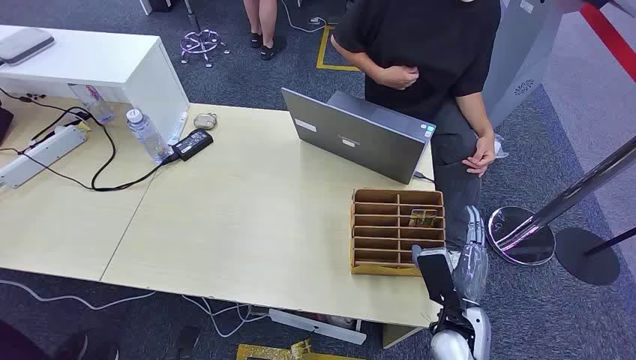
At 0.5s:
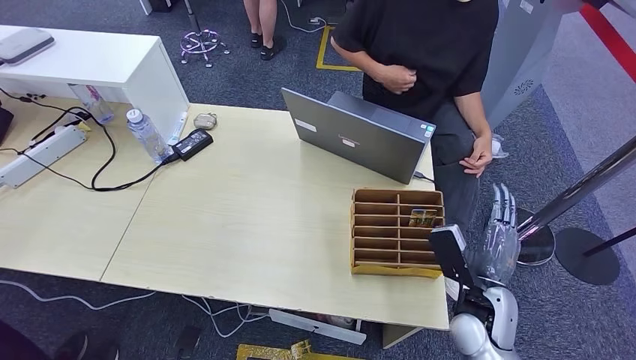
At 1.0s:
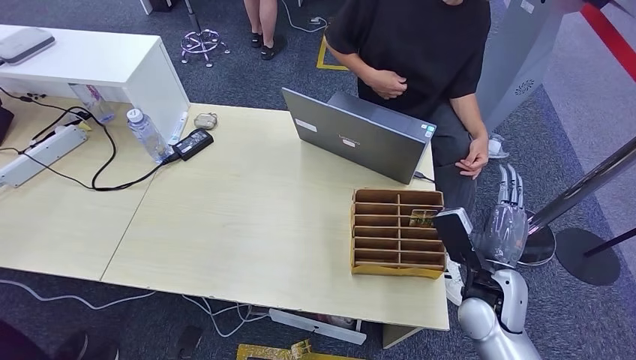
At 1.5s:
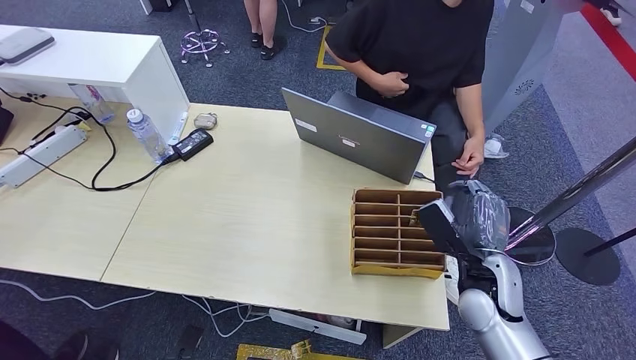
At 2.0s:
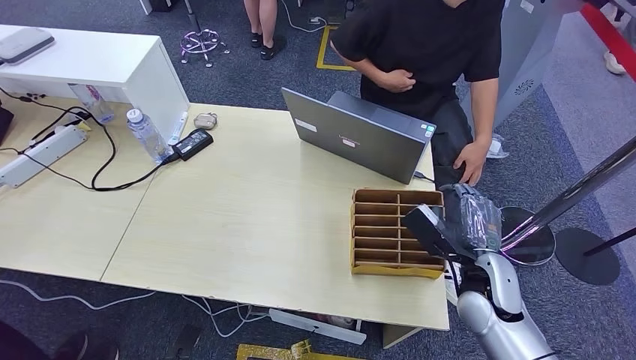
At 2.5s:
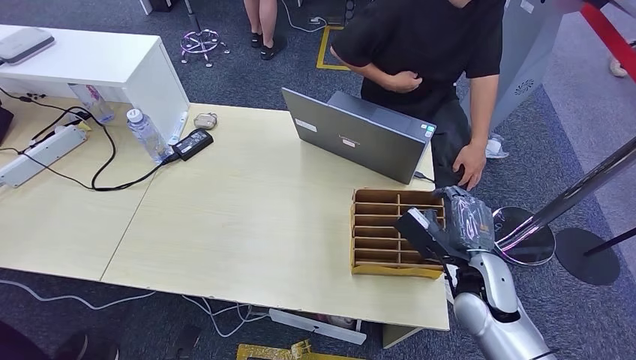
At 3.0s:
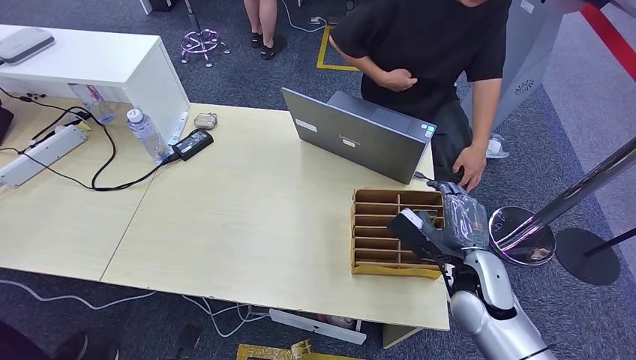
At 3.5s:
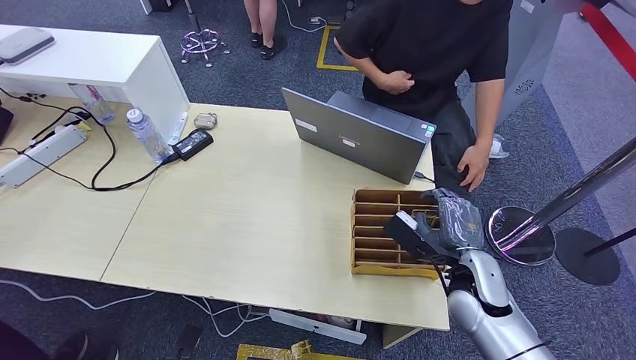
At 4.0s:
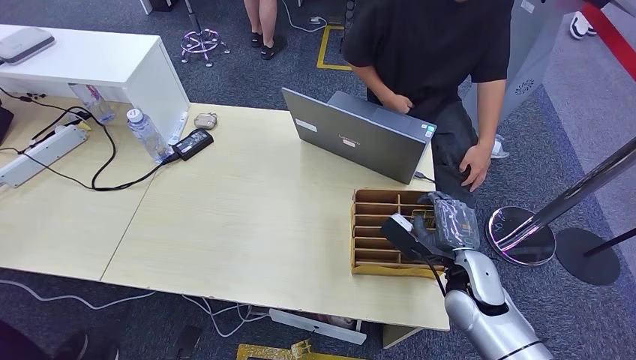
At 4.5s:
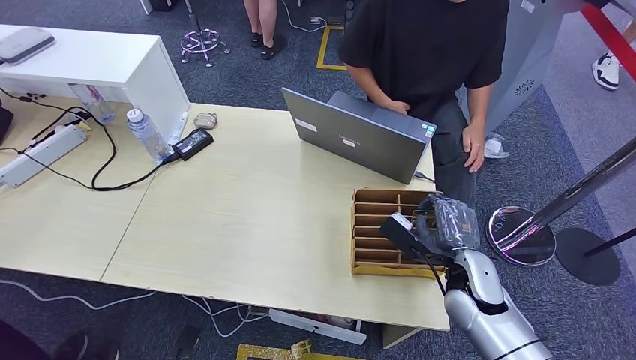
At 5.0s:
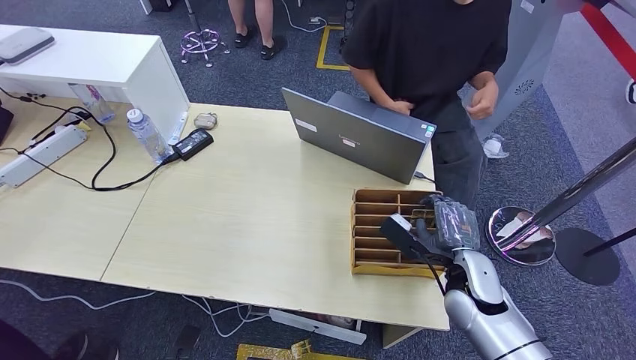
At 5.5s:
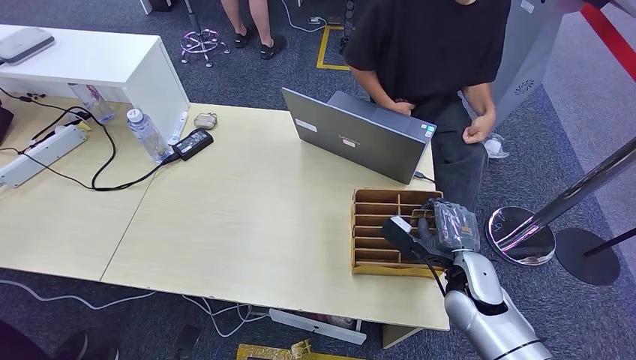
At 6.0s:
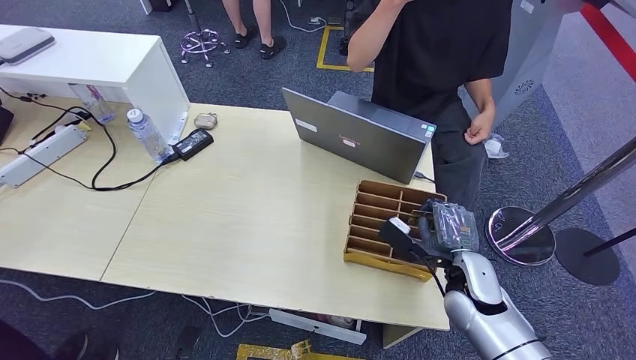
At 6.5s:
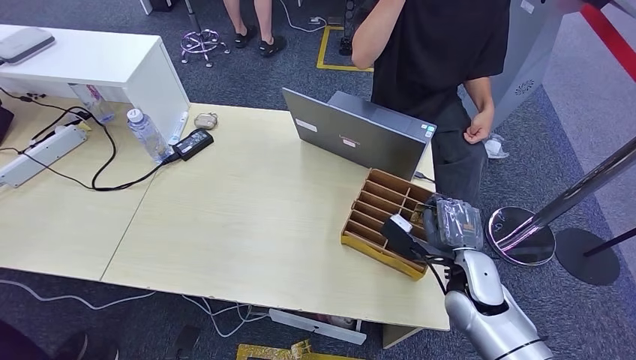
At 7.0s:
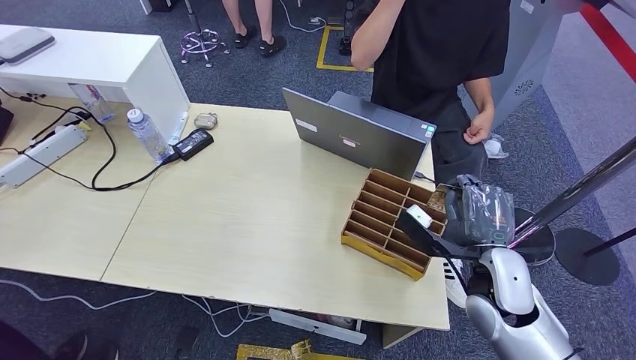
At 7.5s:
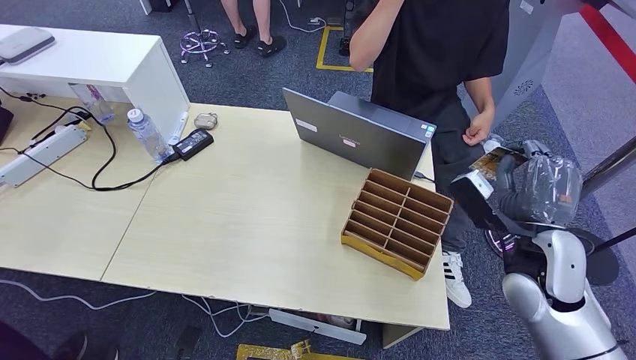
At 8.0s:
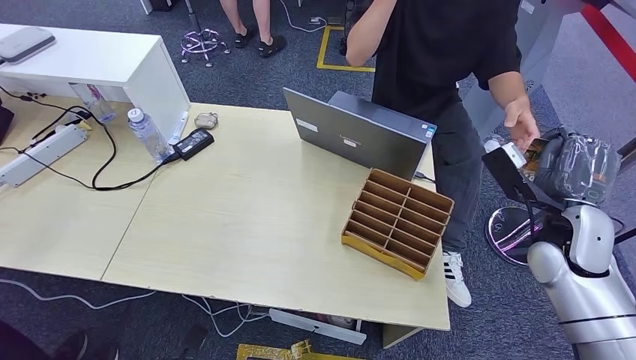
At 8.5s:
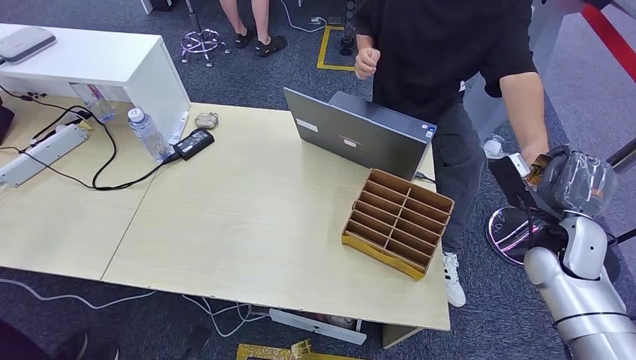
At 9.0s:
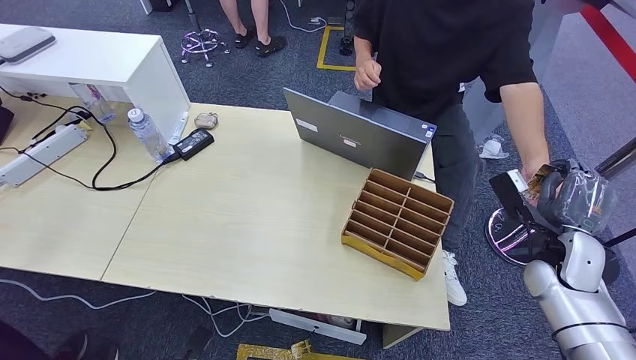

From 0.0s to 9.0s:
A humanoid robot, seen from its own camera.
Task of the whole recording: Pick up the card and hand it over to the target person.
Step, from 0.0s to 7.5s: Pick up the key card from the card box.
Step, from 8.0s to 9.0s: Hand the key card to the target.
From 2.0s to 4.5s: The hands make only small movements.
From 4.5s to 7.0s: The right hand is displaced upward by some 10 cm.
From 7.0s to 9.0s: The right hand is displaced to the right, forward and downward by about 15 cm.

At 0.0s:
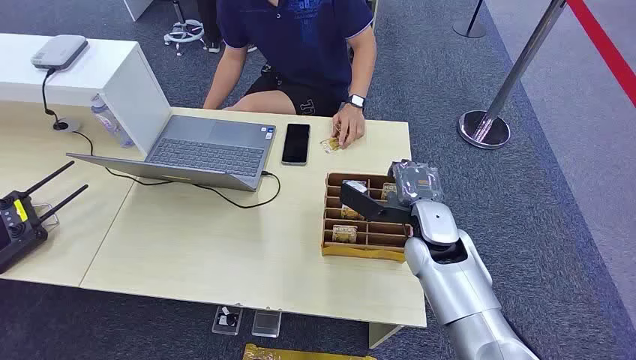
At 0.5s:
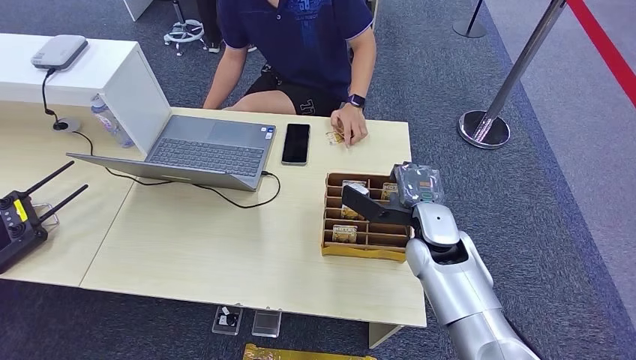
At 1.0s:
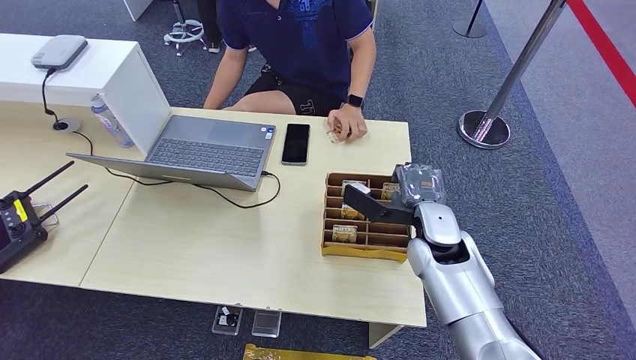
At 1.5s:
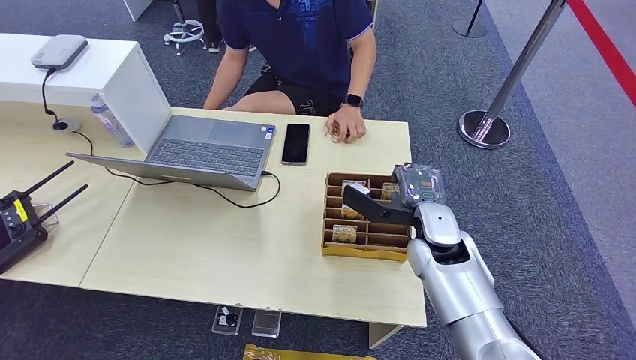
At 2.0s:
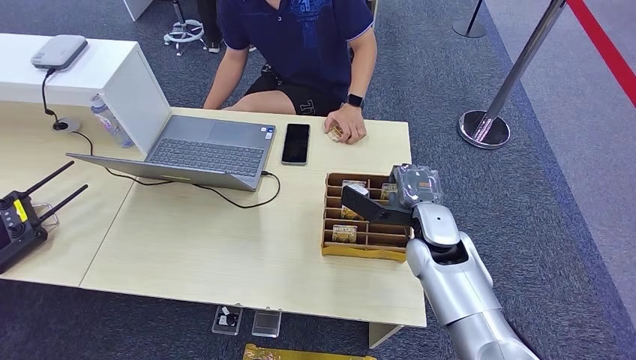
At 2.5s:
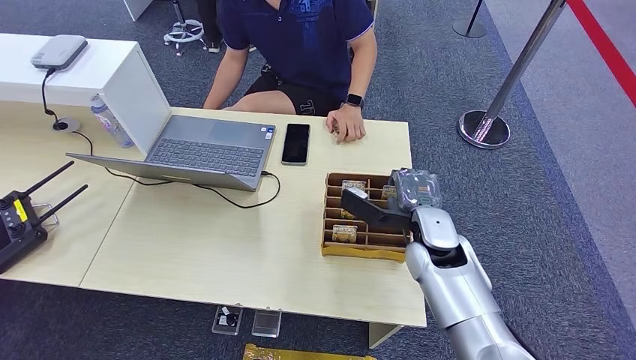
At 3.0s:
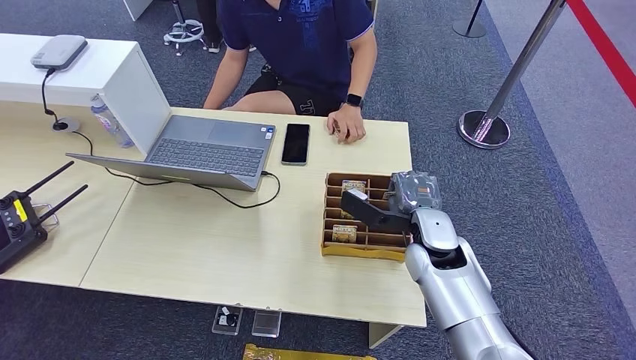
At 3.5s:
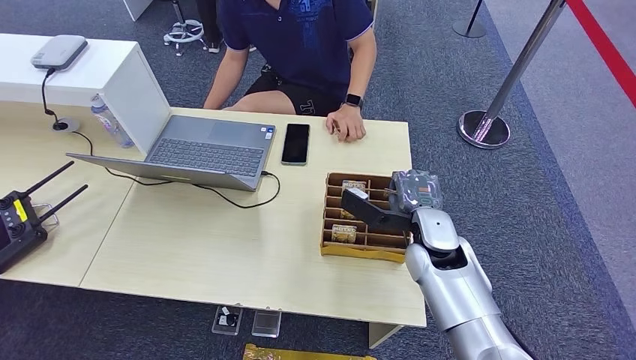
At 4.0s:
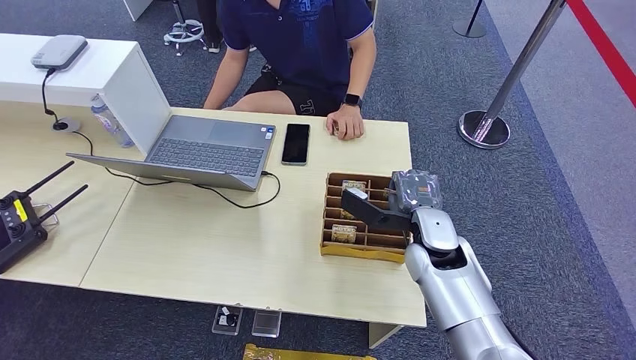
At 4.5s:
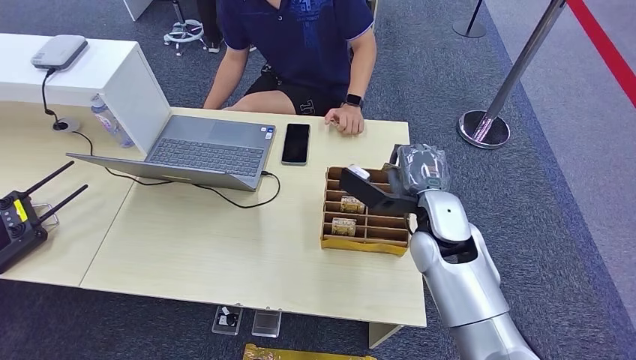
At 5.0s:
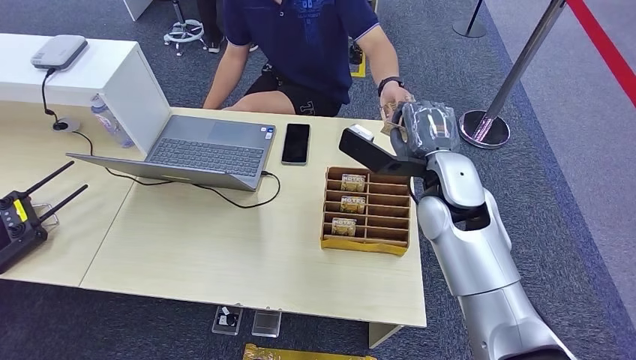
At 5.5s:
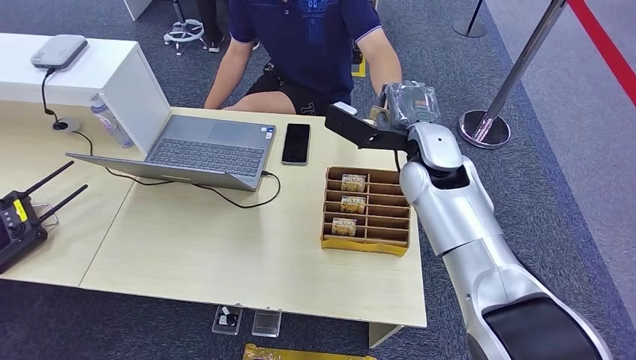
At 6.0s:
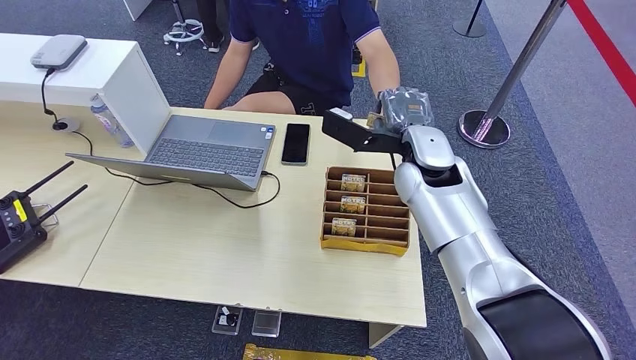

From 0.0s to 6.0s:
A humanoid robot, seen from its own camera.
Task of the whole recording: Pick up the card and hand it over to the target person.
Step, from 0.0s to 5.0s: Pick up the key card from the card box.
Step, from 5.5s to 6.0s: Hand the key card to the target.
From 2.0s to 4.0s: There are only small adjustments of the hands.
From 4.0s to 6.0s: The right hand moves upward and forward, some 15 cm.

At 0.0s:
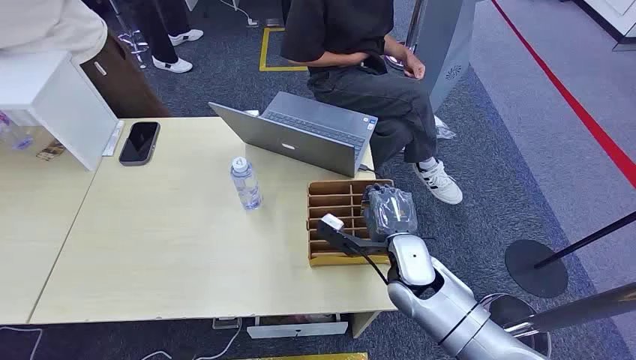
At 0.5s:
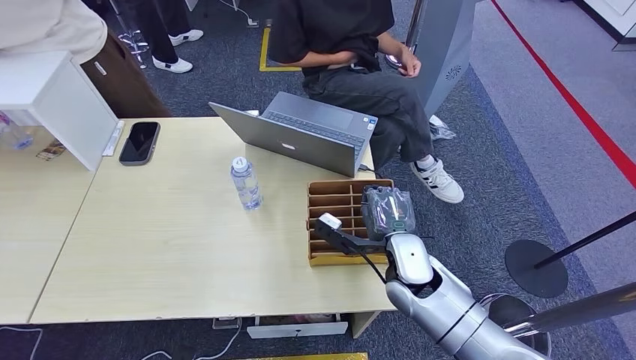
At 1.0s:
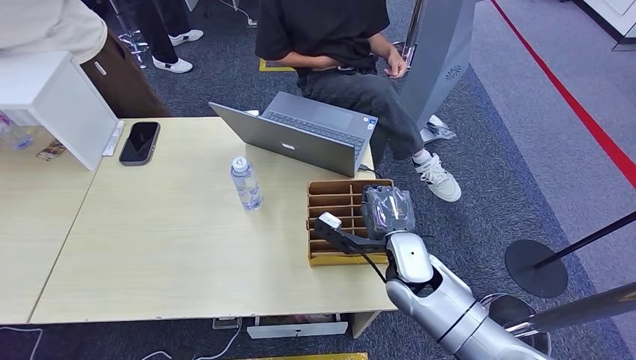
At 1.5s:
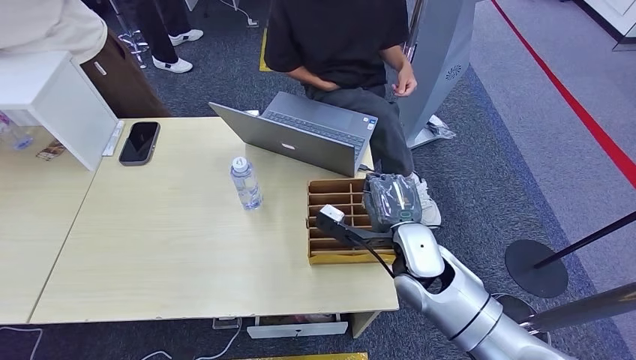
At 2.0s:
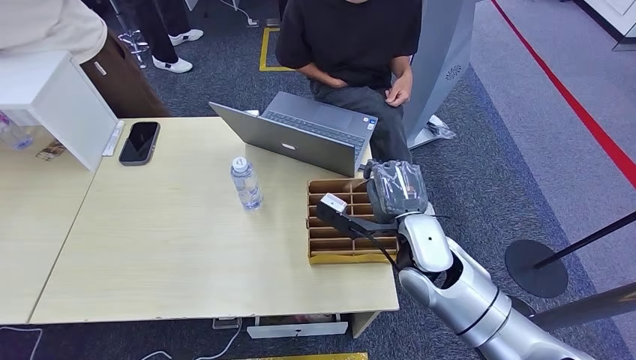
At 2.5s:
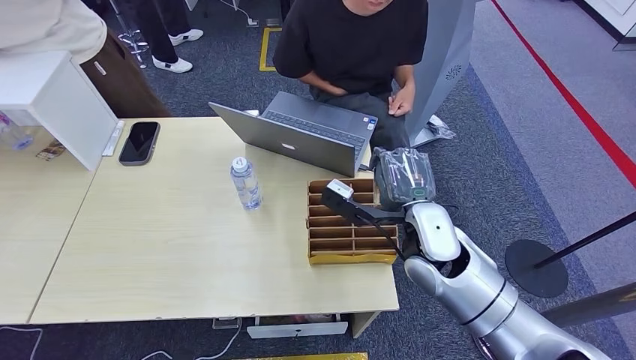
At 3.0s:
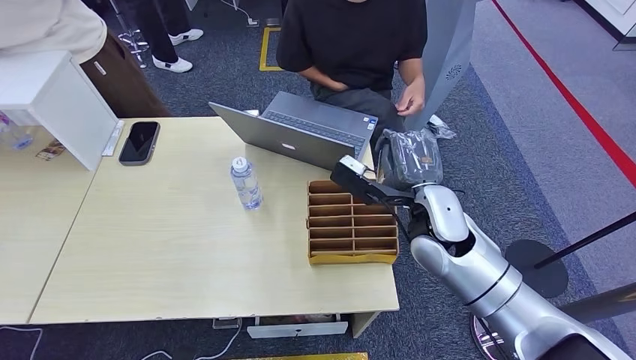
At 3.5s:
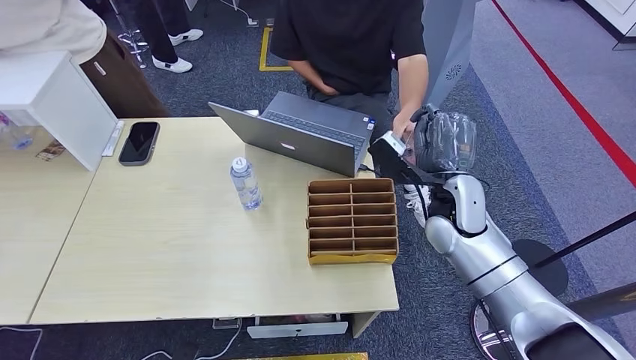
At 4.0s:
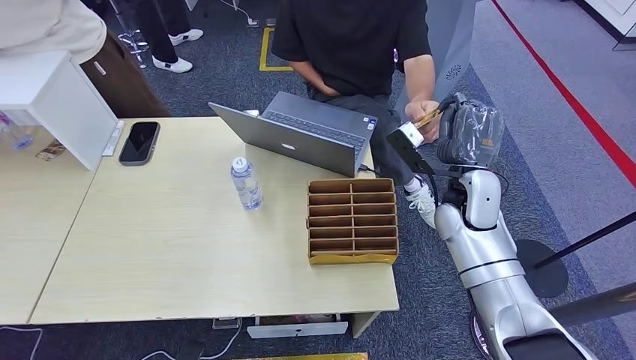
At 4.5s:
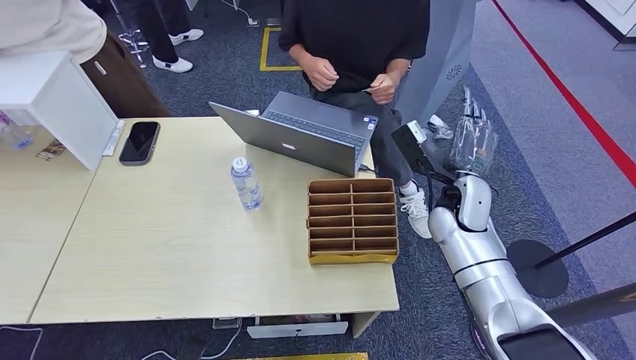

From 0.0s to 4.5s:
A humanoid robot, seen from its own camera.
Task of the whole recording: Pick up the card and hand it over to the target person.
Step, from 0.0s to 1.5s: Pick up the key card from the card box.
Step, from 2.0s to 4.5s: Hand the key card to the target.
From 2.0s to 4.5s: The right hand heads forward and to the right, covering approximately 10 cm.
